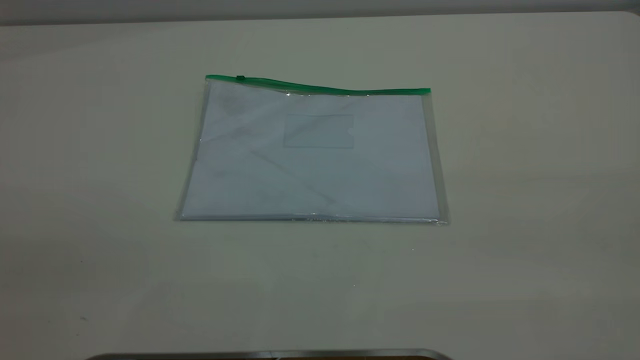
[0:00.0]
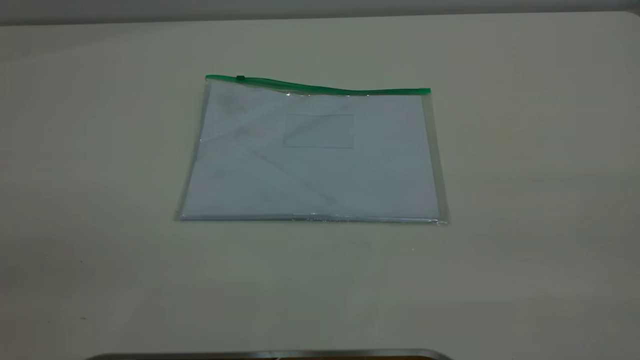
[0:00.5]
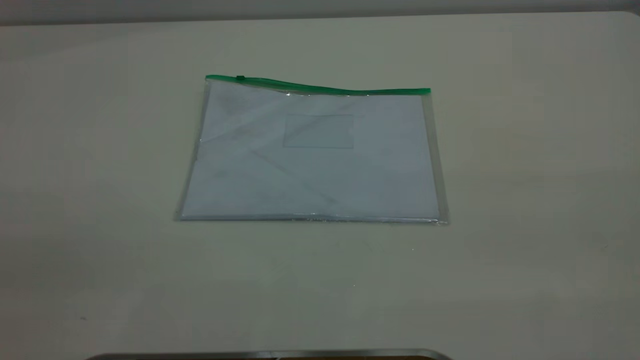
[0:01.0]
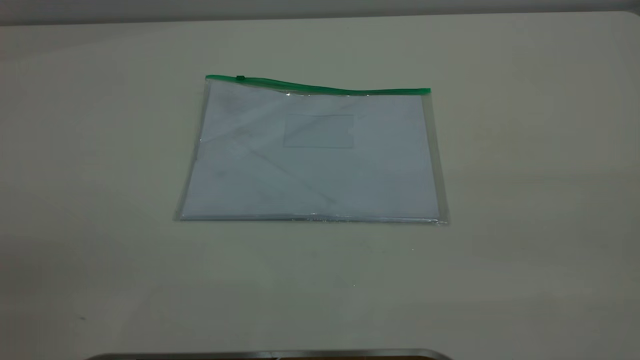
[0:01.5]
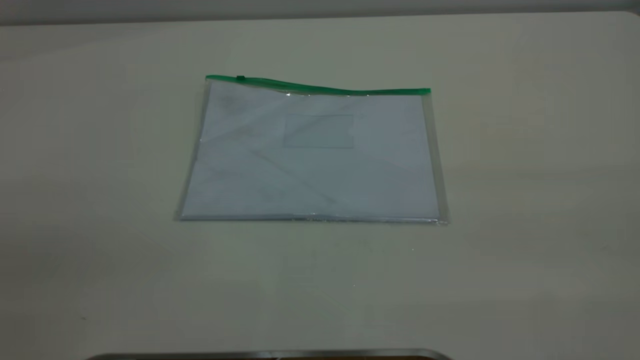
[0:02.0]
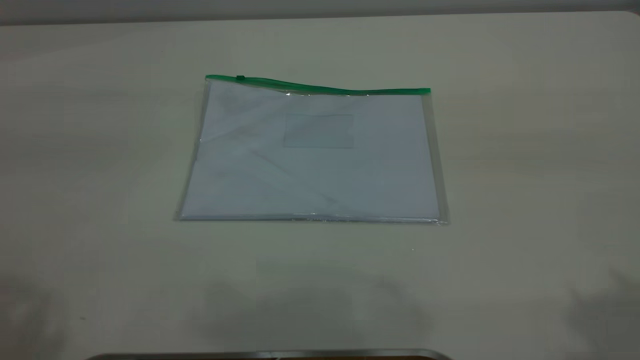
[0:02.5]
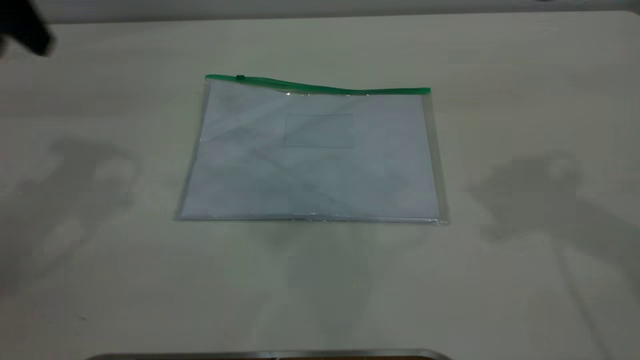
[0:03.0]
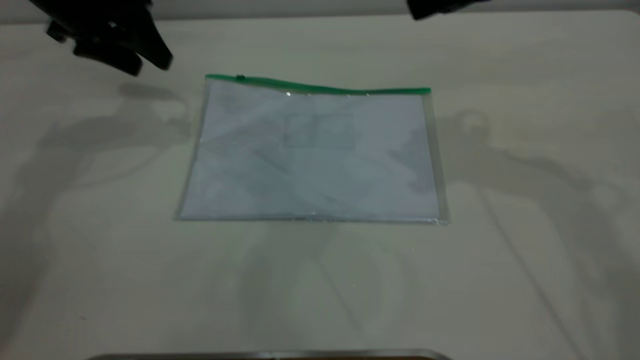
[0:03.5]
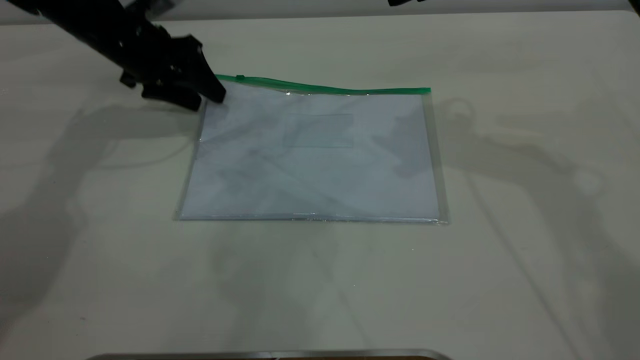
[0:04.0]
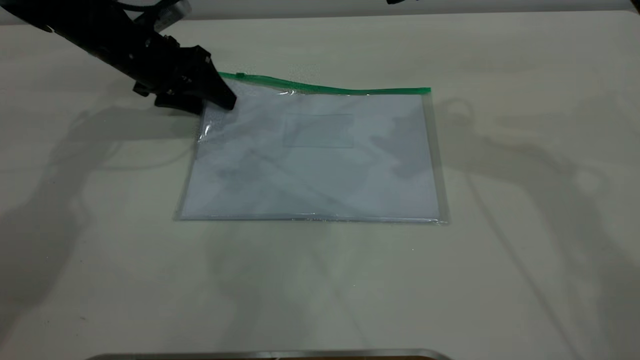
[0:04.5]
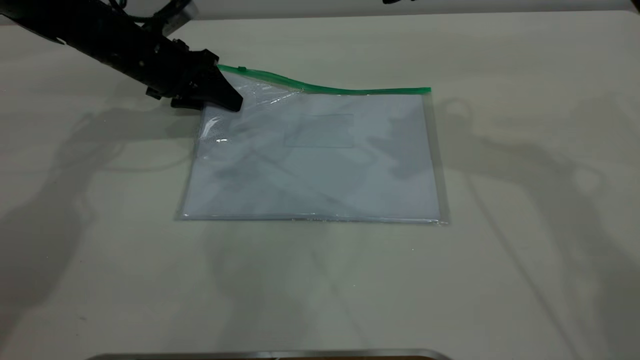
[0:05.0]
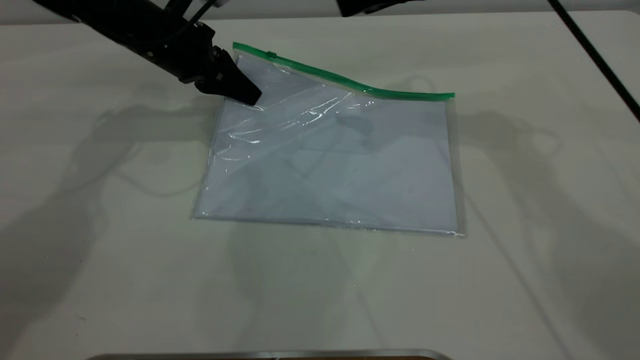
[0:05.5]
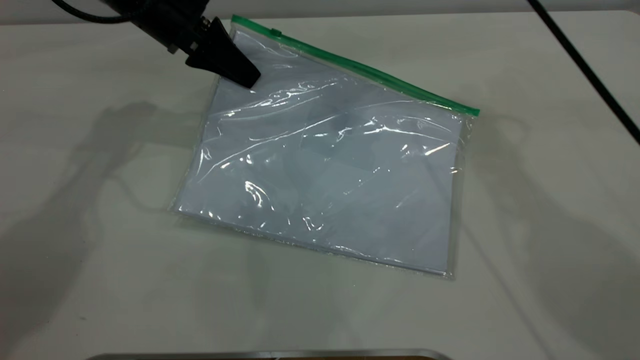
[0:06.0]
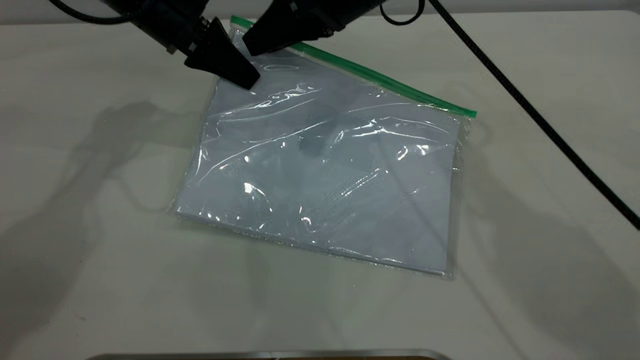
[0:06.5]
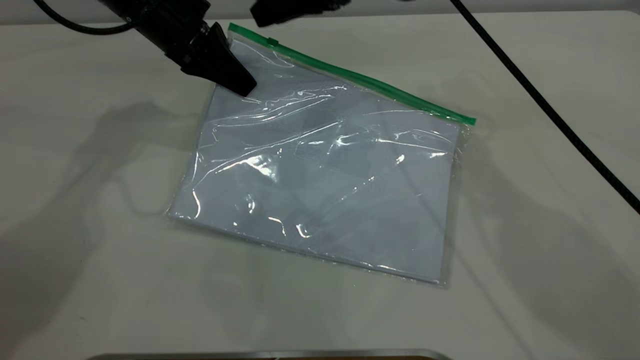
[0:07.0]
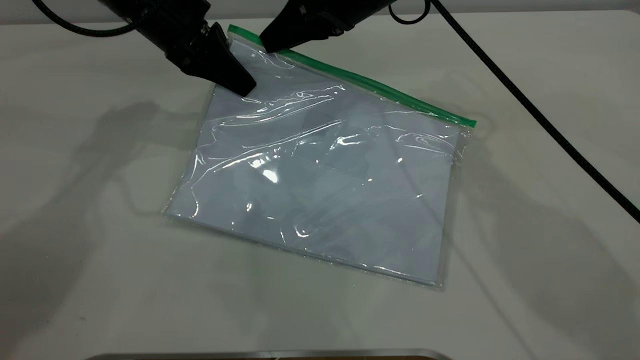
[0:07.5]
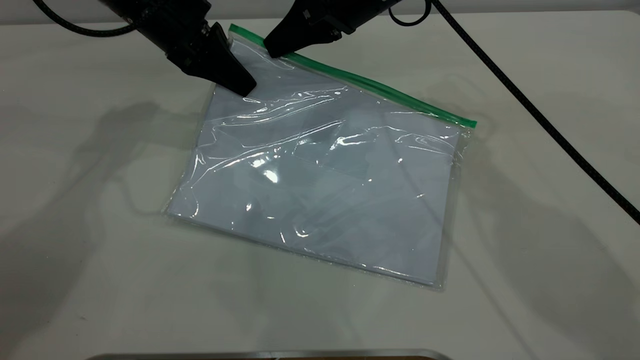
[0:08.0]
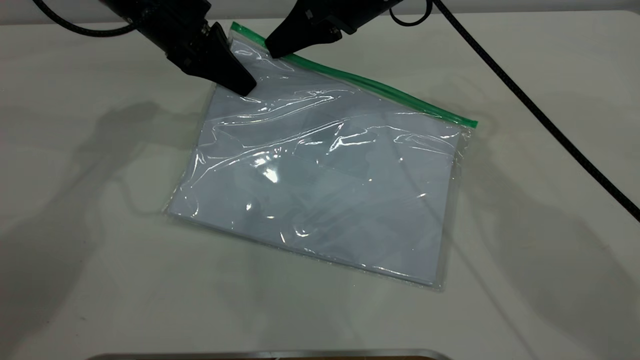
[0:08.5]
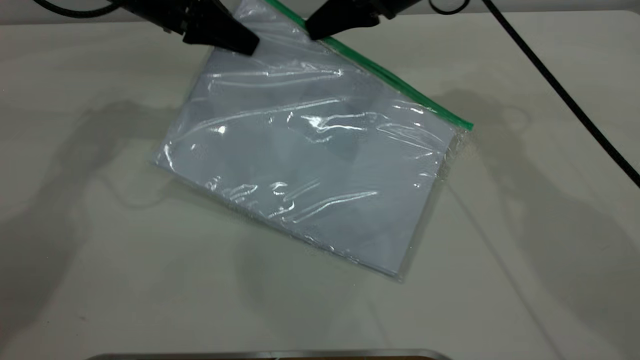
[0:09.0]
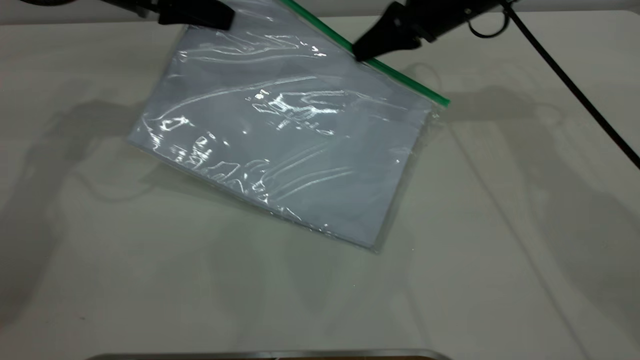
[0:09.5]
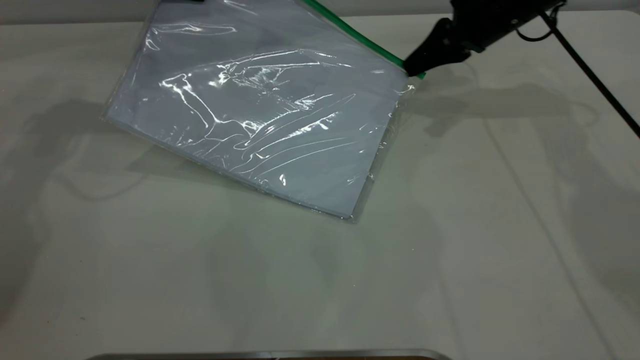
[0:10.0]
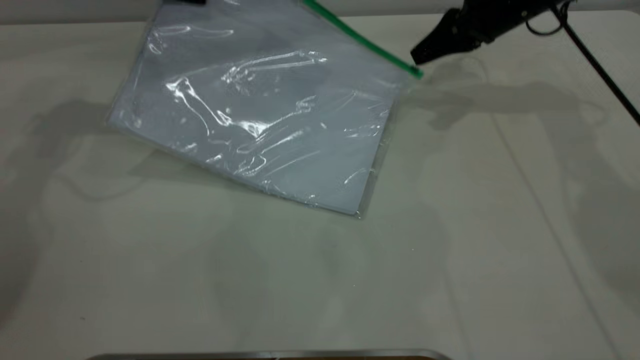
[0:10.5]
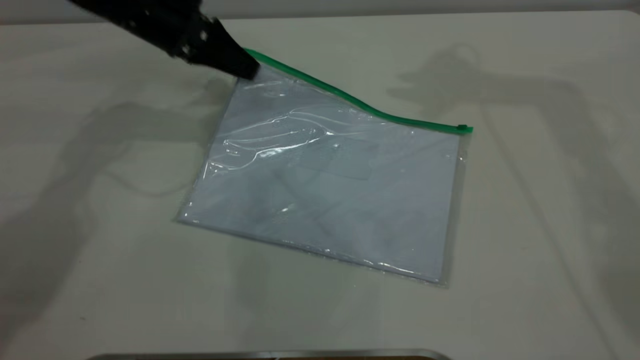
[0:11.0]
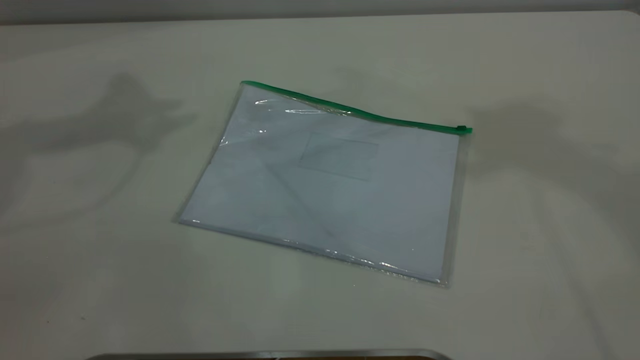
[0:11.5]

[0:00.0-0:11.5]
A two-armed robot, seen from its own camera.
Step, 0:00.0 to 0:05.5: Pick up the transparent plastic bag with the left gripper.
Step, 0:06.0 to 0:10.5: Pulling up the zipper on the transparent plastic bag with the right gripper to close it.
0:02.0 to 0:04.0: The left gripper moves forward and downward, about 60 cm.
0:04.0 to 0:06.0: The right gripper is displaced to the left and forward by some 10 cm. Meanwhile the left gripper travels upward and to the right by some 10 cm, and closes.
0:06.0 to 0:07.5: The right gripper is displaced downward by some 5 cm.
0:07.5 to 0:09.5: The left gripper shifts roughly 5 cm to the left. Meanwhile the right gripper is displaced to the right by about 10 cm, and closes its fingers.
0:09.5 to 0:11.5: The right gripper heads upward, covering some 50 cm, and opens up. The left gripper moves upward, some 25 cm, and opens.

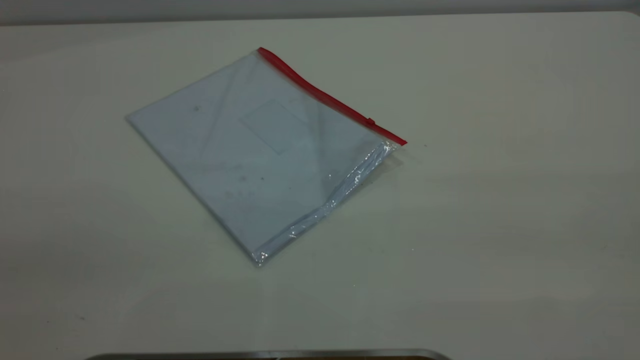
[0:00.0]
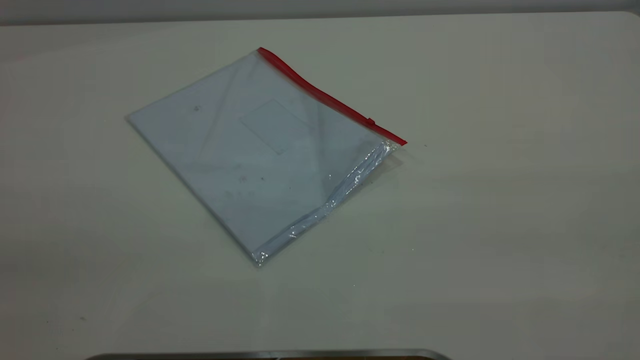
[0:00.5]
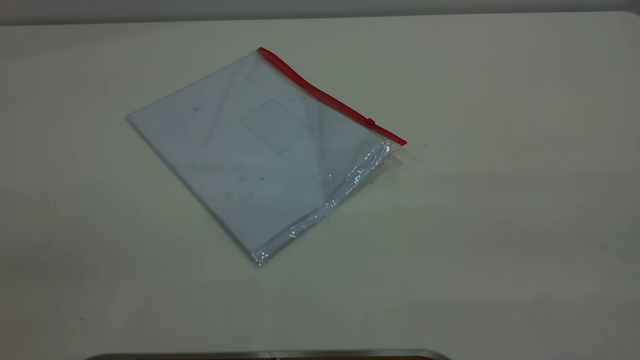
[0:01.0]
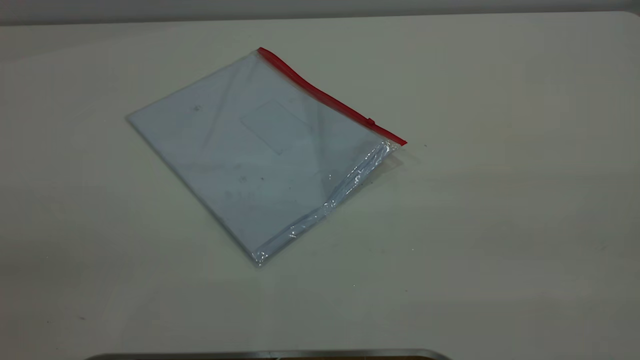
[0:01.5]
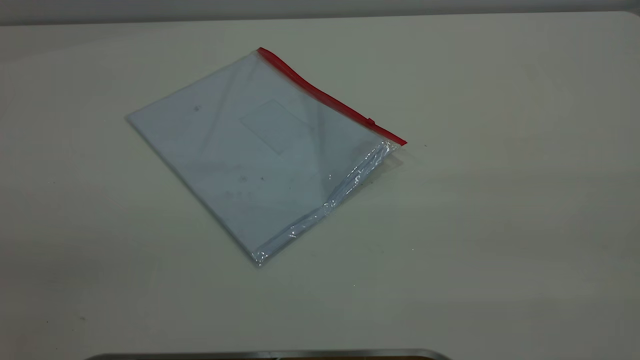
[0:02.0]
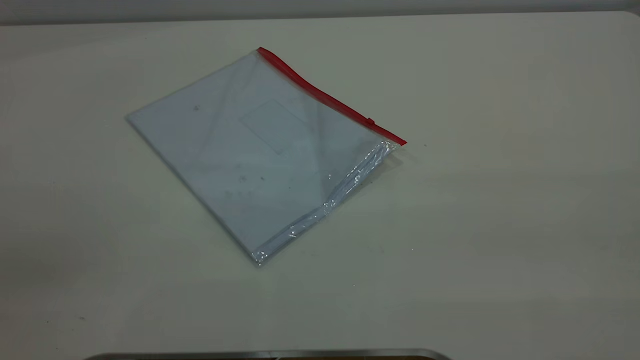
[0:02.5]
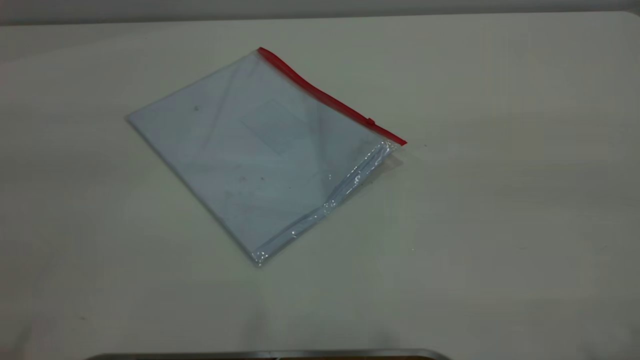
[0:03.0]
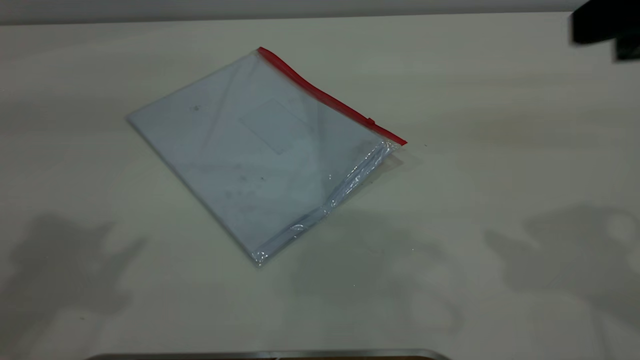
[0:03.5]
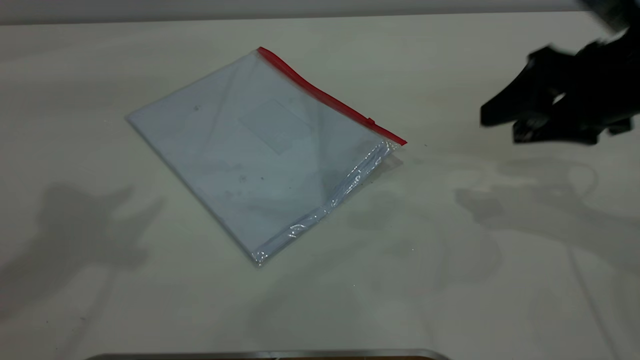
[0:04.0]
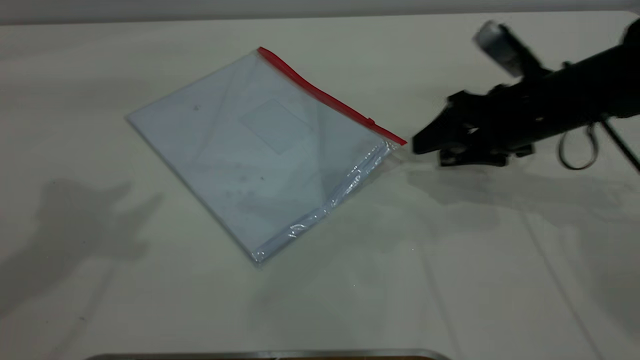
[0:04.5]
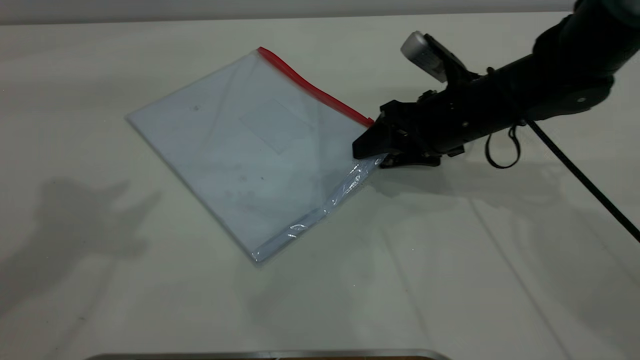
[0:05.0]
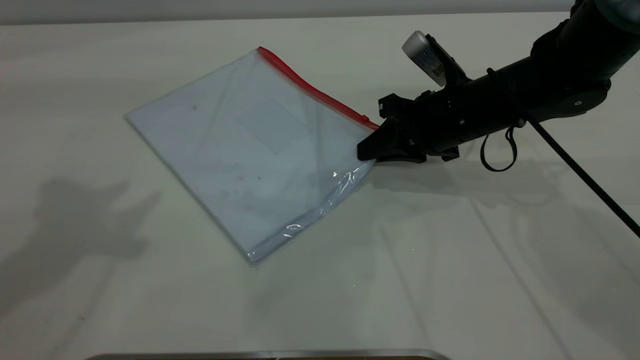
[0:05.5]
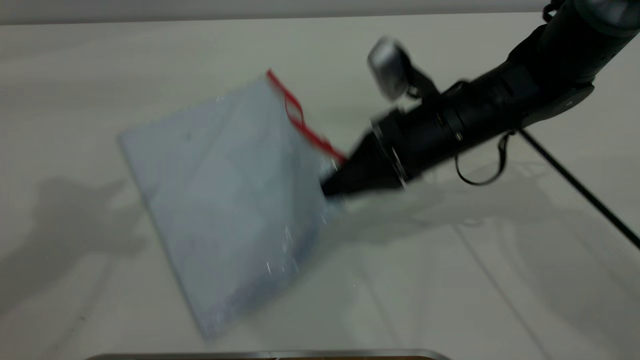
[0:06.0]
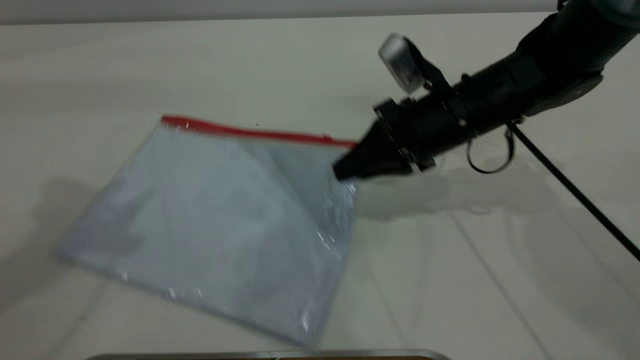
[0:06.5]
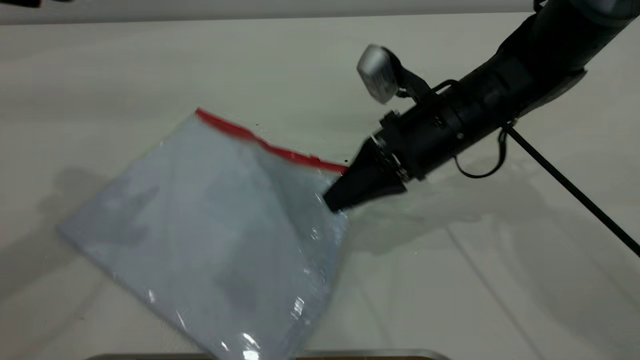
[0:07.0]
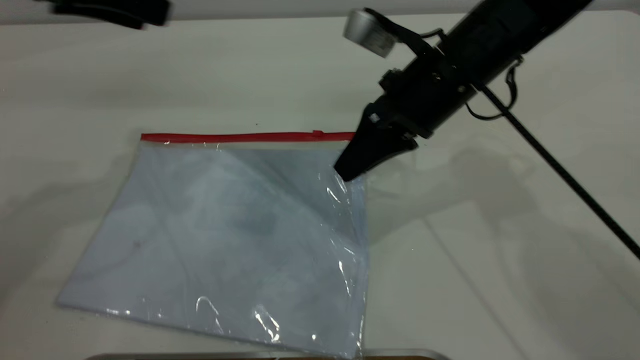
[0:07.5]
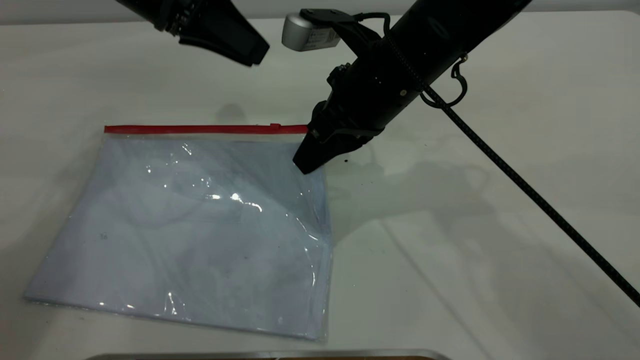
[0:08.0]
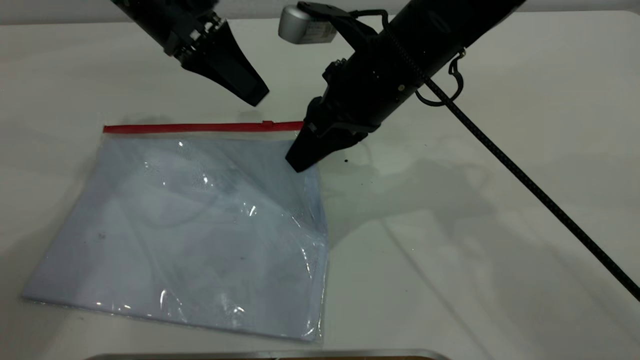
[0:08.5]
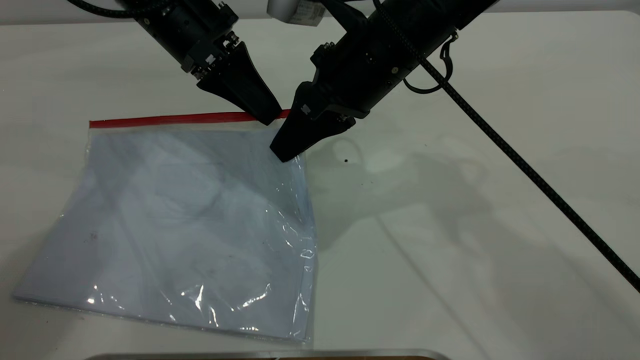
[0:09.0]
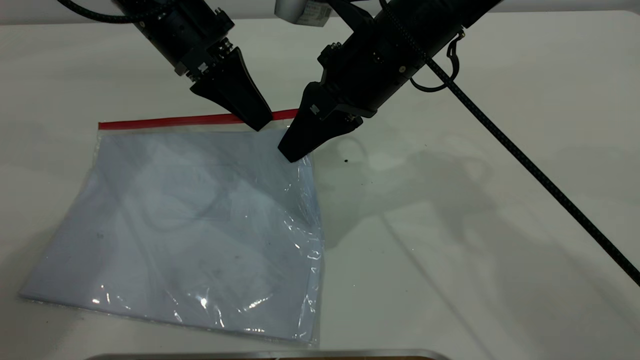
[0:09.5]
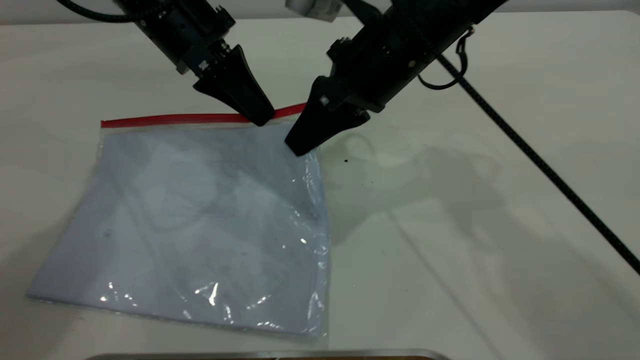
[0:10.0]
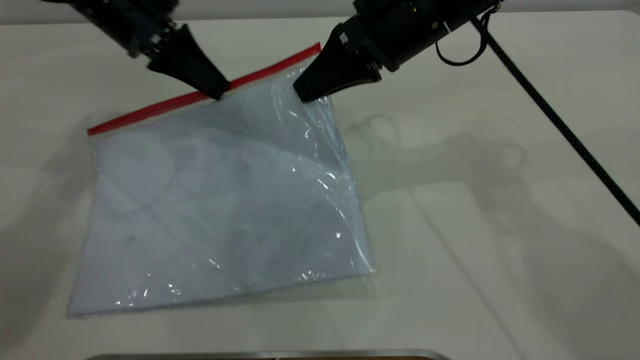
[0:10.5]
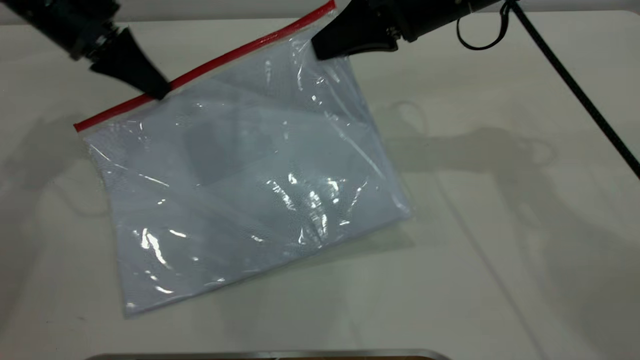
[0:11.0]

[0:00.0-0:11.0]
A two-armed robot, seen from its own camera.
Step, 0:00.0 to 0:07.0: Pick up the transparent plastic bag with the right gripper.
0:00.0 to 0:02.0: Both grippers stay put.
0:02.0 to 0:03.5: The right gripper shifts some 25 cm forward.
0:03.5 to 0:05.5: The right gripper shifts roughly 30 cm downward, forward and to the left, and closes up.
0:05.5 to 0:07.5: The left gripper moves forward and downward, about 15 cm. Meanwhile the right gripper goes approximately 5 cm upward.
0:07.5 to 0:09.0: The left gripper moves downward, to the right and forward, about 15 cm. Meanwhile the right gripper moves to the left, roughly 5 cm.
0:09.0 to 0:11.0: The left gripper heads to the left, covering some 15 cm, and closes its fingers. Meanwhile the right gripper is displaced to the right and forward by some 10 cm.
